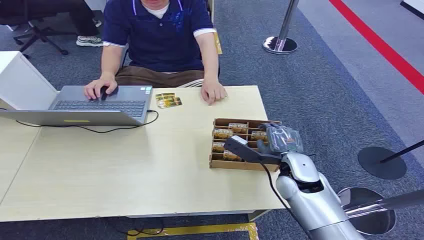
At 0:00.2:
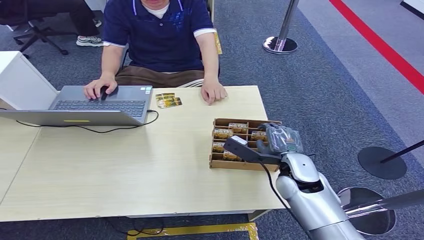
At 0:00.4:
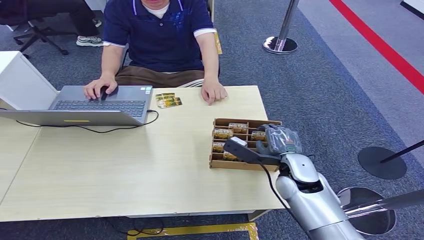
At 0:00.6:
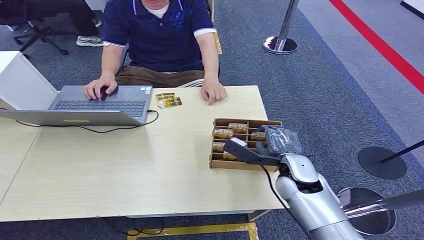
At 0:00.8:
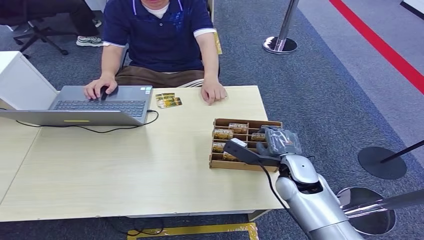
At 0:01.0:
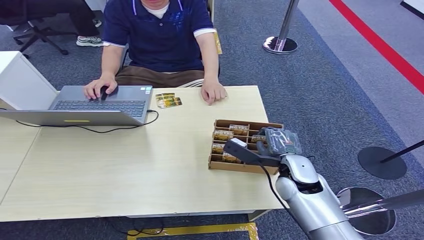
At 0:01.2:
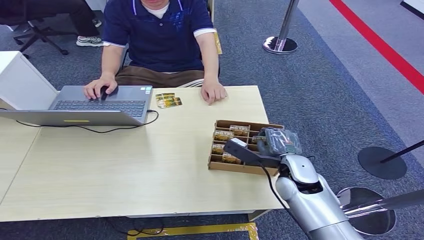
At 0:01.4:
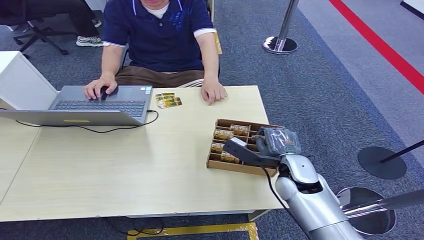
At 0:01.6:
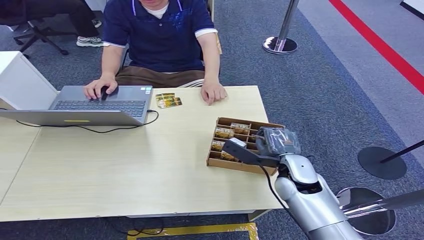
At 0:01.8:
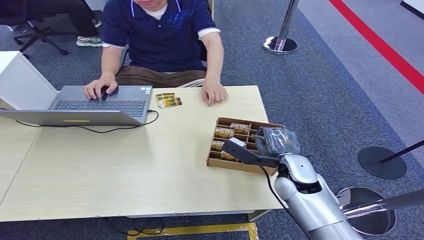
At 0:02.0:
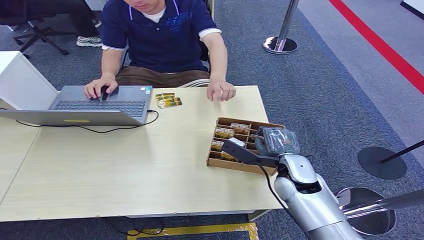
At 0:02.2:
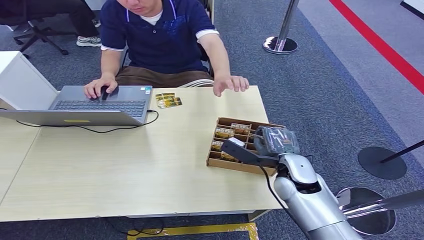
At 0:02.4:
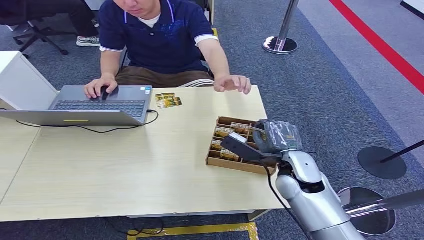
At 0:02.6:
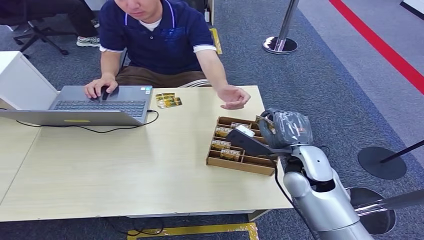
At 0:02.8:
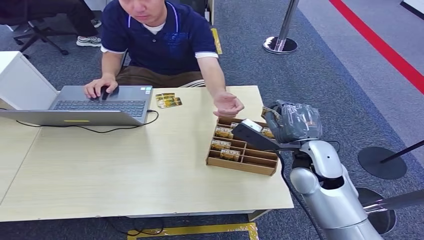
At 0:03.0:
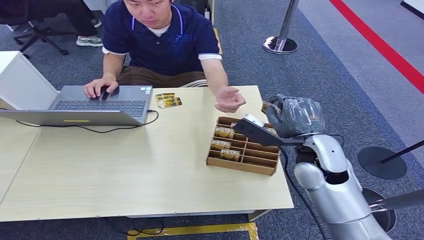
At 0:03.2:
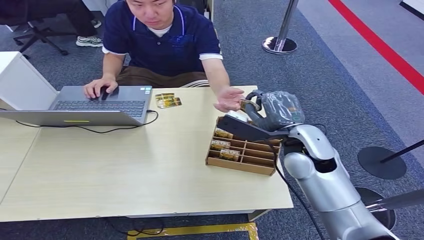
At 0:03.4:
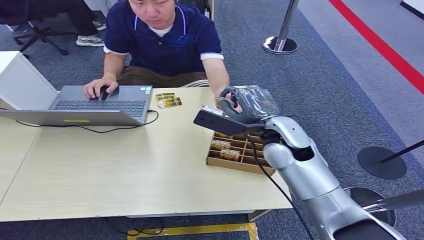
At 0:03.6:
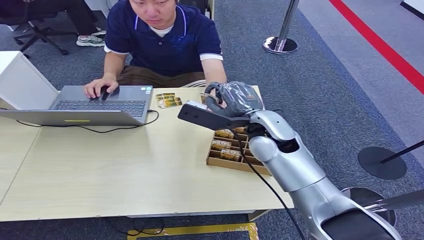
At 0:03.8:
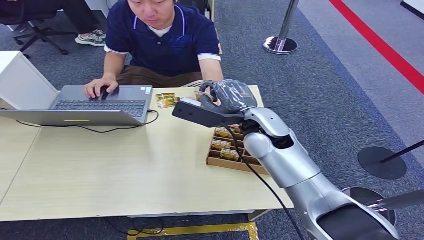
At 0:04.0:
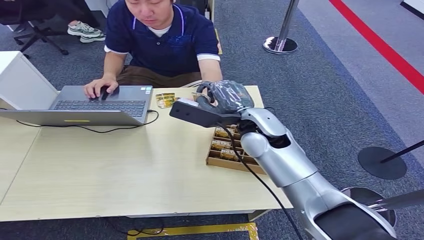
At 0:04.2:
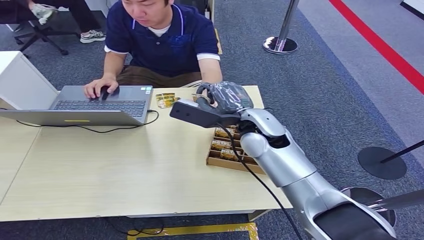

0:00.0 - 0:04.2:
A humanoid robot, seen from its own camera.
Step, 0:00.0 - 0:02.2: Pick up the room card from the card holder.
Step, 0:02.4 - 0:04.2: Hand the room card to the target.
0:01.4 - 0:02.8: The right hand is displaced upward by roughly 10 cm.
0:02.8 - 0:04.2: The right hand is displaced to the left and forward by roughly 15 cm.
